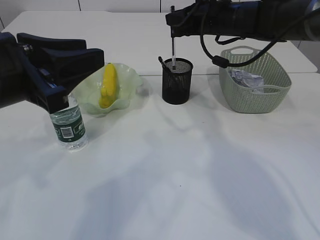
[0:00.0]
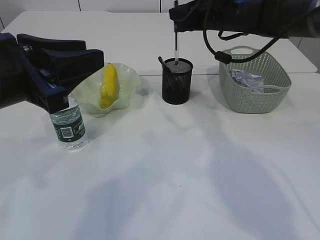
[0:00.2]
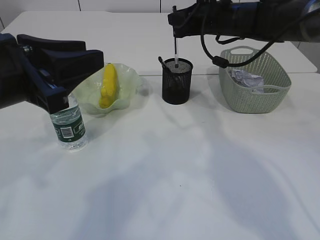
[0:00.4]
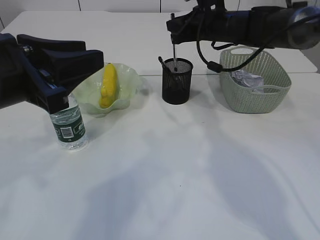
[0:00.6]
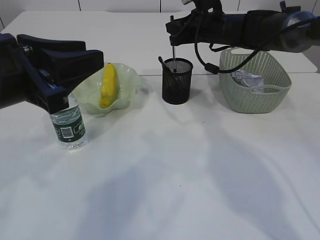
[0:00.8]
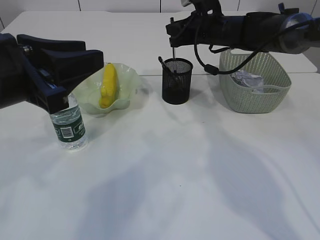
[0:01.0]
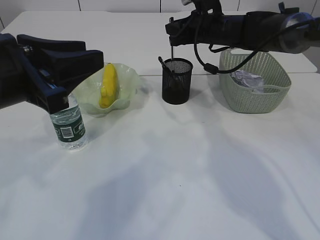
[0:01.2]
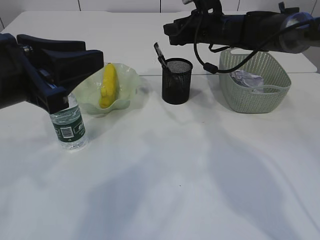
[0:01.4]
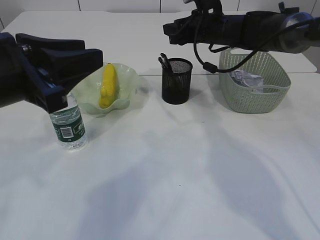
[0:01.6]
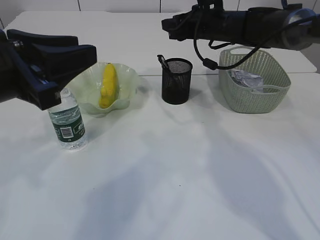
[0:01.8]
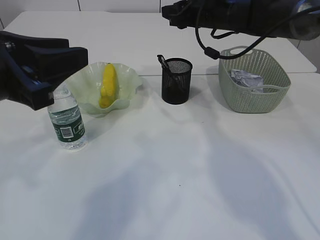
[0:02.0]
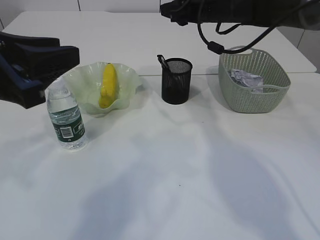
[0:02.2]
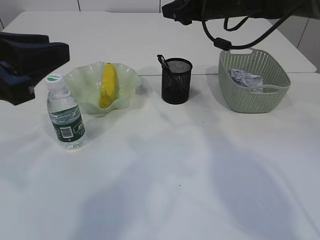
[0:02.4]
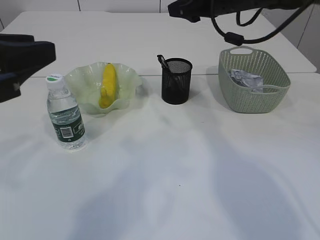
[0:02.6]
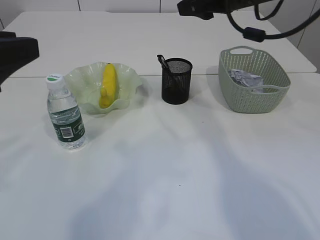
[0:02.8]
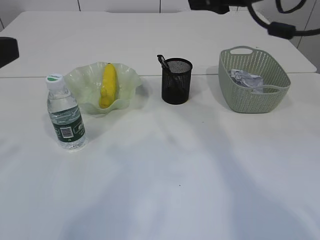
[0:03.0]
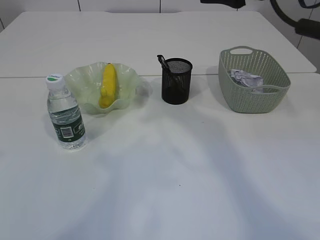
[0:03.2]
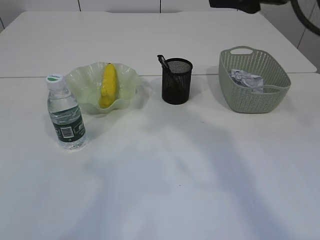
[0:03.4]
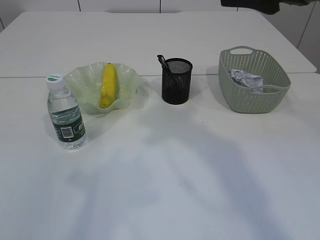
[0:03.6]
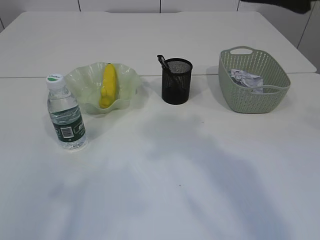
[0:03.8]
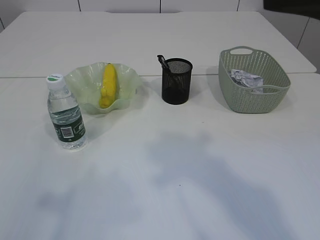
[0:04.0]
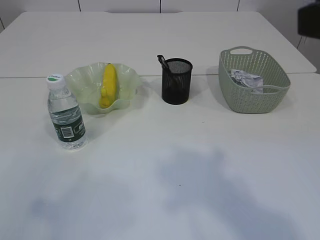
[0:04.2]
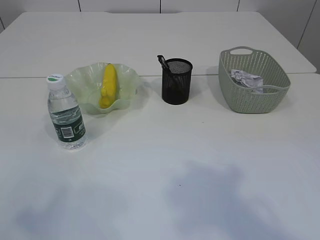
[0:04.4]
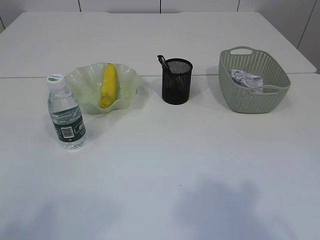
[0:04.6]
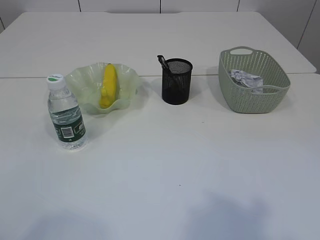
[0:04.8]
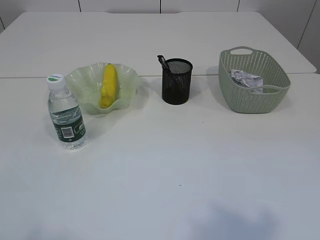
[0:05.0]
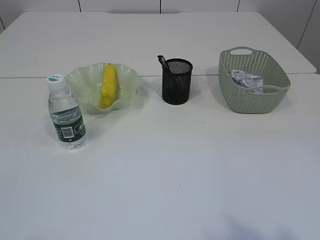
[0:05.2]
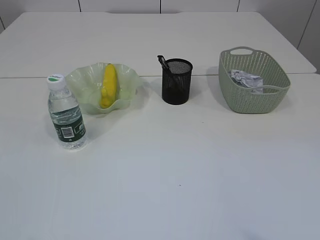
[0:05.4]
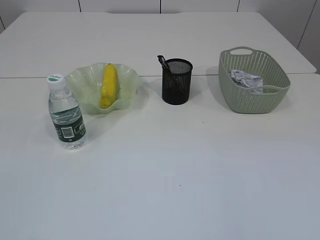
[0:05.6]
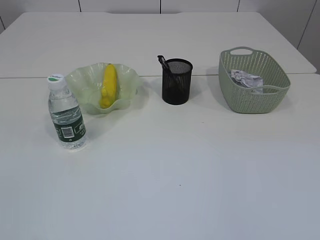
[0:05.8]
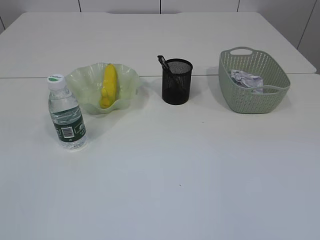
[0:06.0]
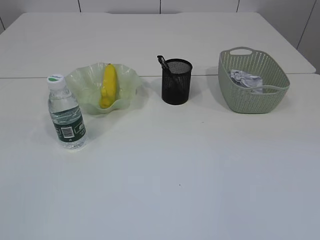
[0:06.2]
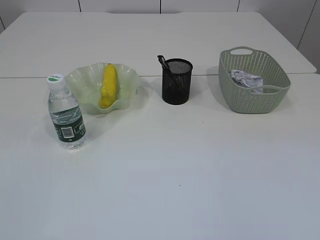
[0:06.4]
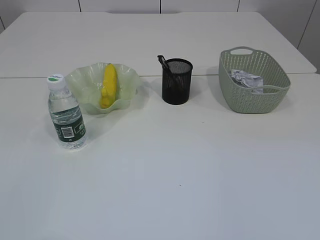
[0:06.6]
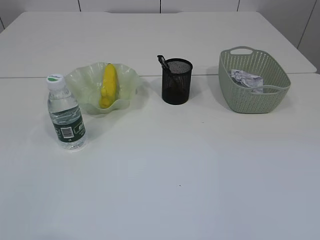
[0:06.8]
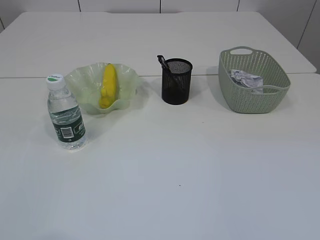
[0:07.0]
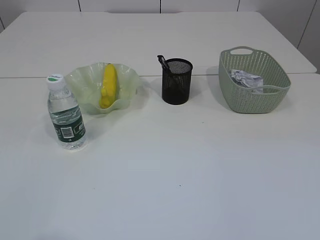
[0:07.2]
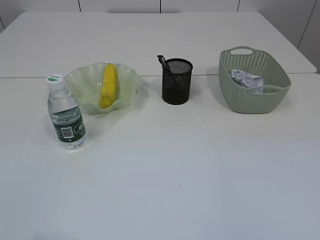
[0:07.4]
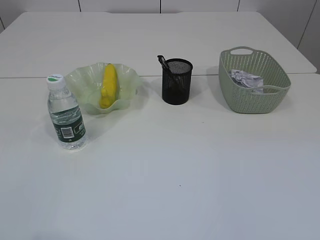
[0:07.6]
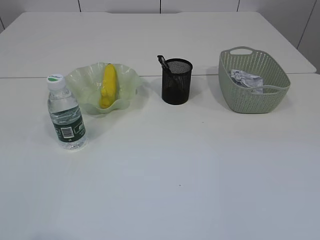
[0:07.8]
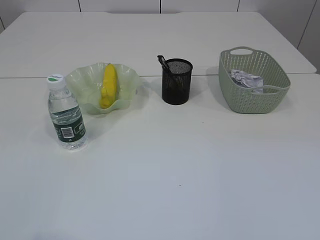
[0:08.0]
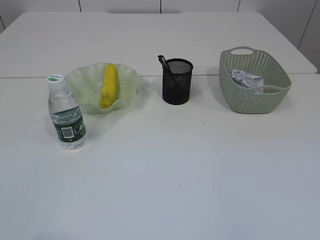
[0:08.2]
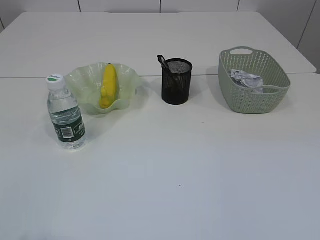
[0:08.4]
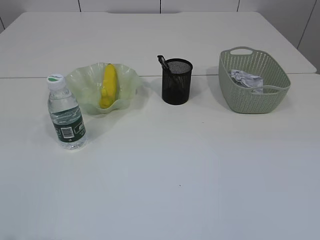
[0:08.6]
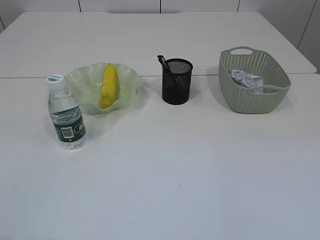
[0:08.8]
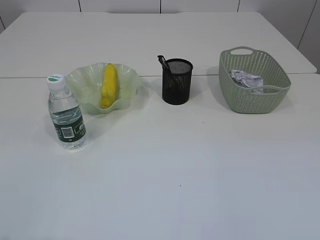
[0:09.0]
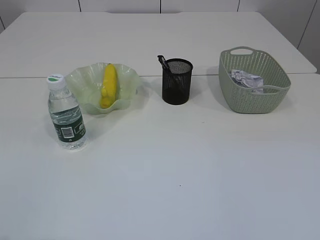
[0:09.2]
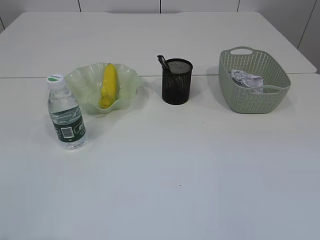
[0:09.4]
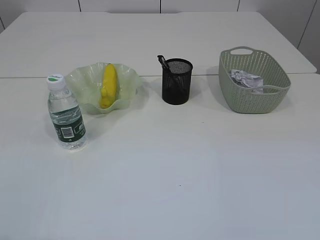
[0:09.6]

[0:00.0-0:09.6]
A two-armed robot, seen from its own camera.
0:00.0 to 0:01.6: The right gripper ends up roughly 5 cm from where it was, and opens up.
0:01.6 to 0:03.2: The left gripper is displaced to the left and backward by some 10 cm. Meanwhile the right gripper is displaced backward and upward by roughly 25 cm.
0:03.2 to 0:04.8: The left gripper moves backward and to the left, roughly 15 cm. Meanwhile the right gripper is displaced backward by roughly 30 cm.

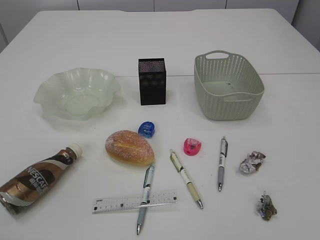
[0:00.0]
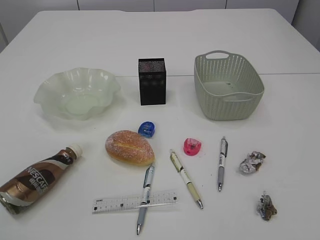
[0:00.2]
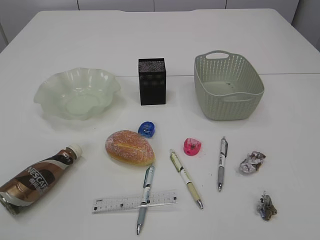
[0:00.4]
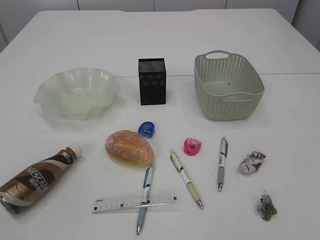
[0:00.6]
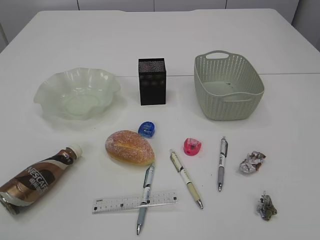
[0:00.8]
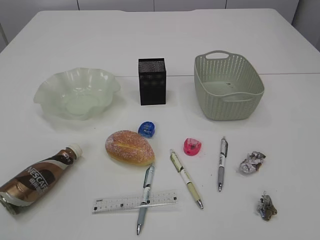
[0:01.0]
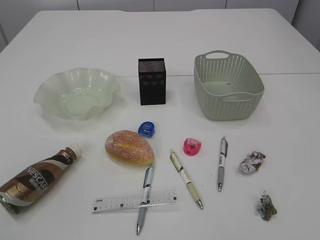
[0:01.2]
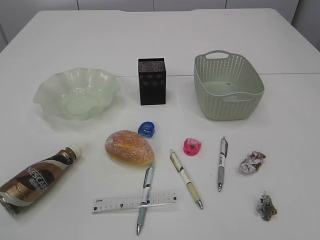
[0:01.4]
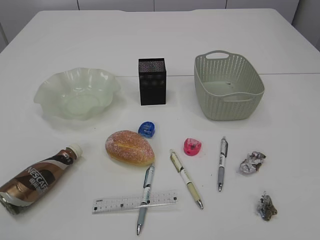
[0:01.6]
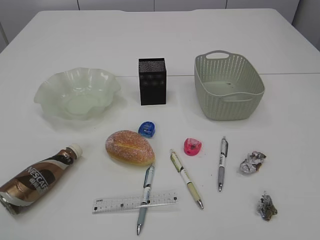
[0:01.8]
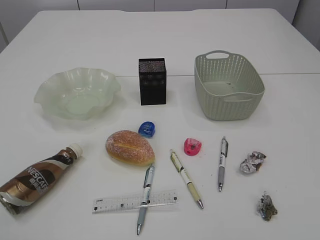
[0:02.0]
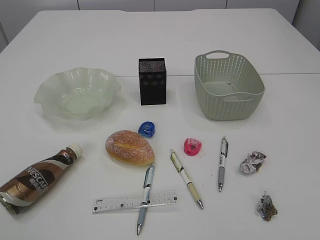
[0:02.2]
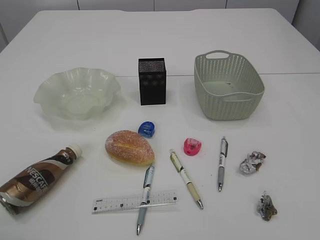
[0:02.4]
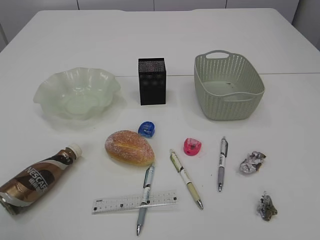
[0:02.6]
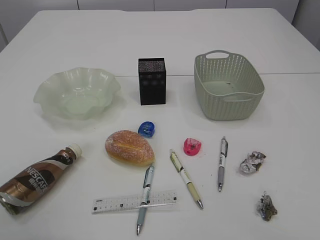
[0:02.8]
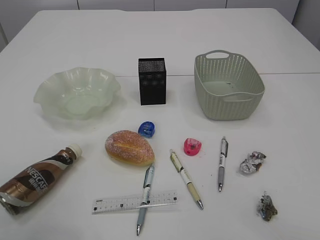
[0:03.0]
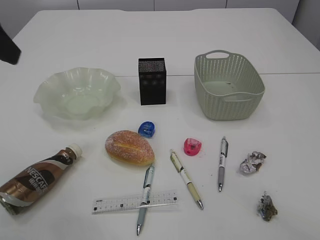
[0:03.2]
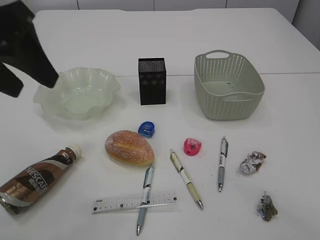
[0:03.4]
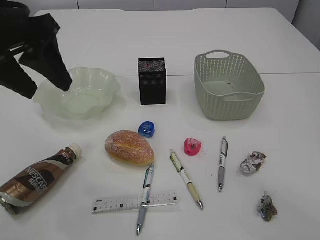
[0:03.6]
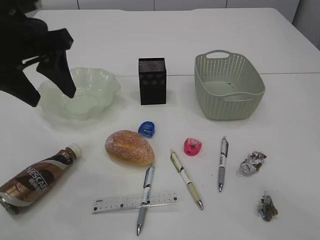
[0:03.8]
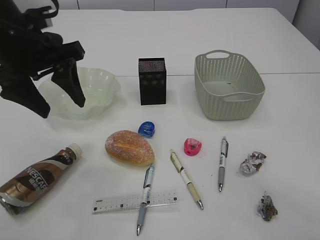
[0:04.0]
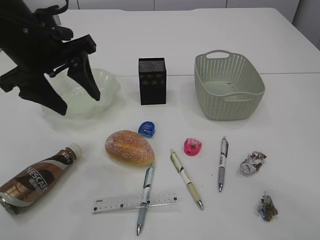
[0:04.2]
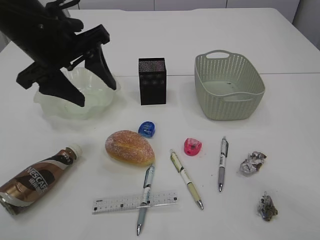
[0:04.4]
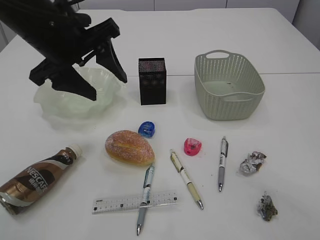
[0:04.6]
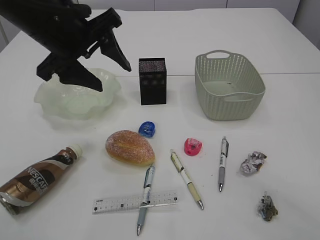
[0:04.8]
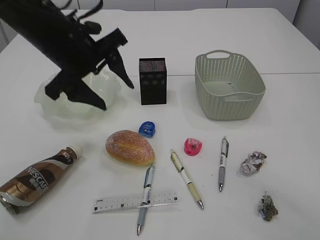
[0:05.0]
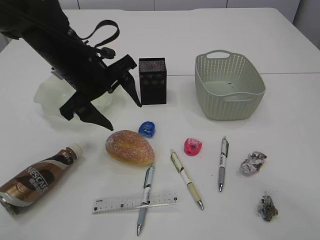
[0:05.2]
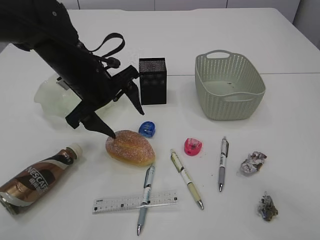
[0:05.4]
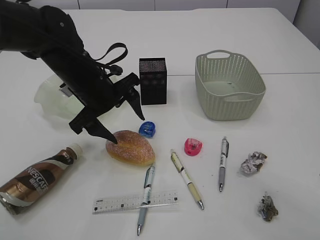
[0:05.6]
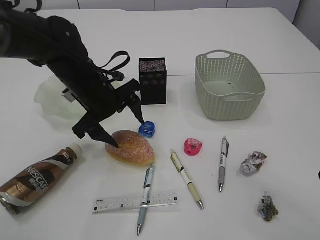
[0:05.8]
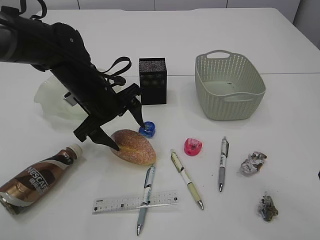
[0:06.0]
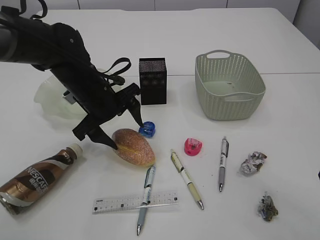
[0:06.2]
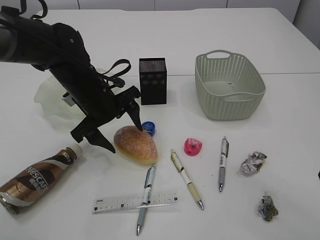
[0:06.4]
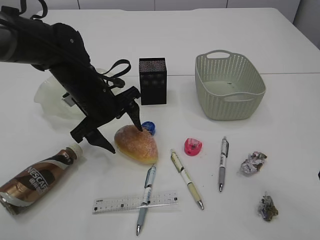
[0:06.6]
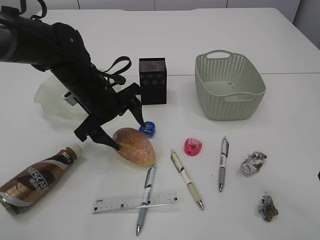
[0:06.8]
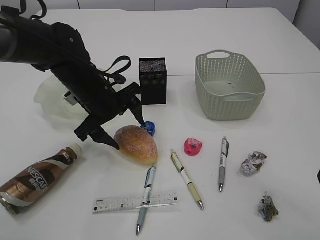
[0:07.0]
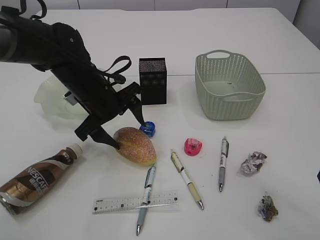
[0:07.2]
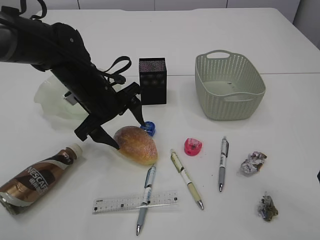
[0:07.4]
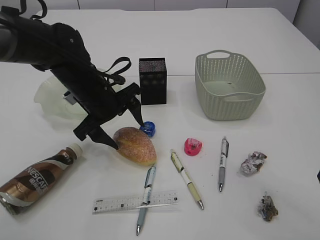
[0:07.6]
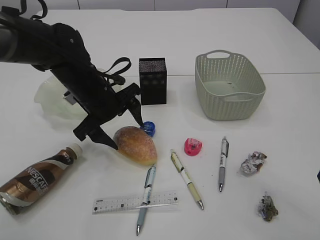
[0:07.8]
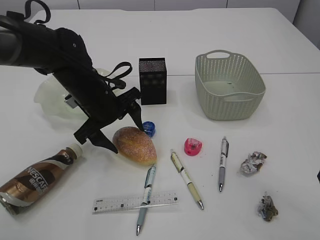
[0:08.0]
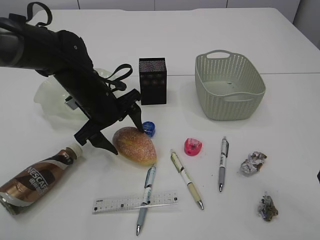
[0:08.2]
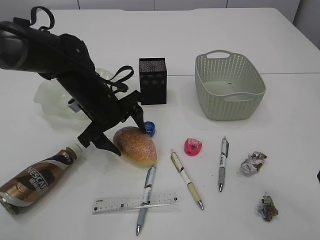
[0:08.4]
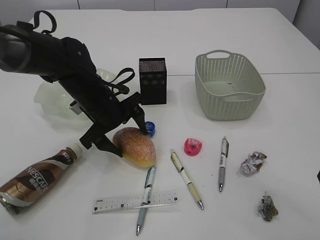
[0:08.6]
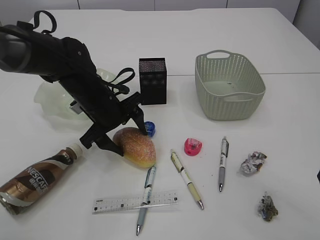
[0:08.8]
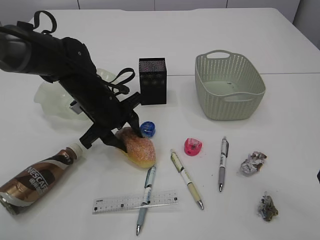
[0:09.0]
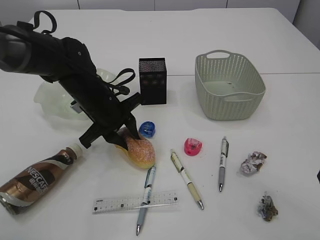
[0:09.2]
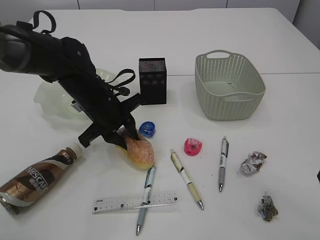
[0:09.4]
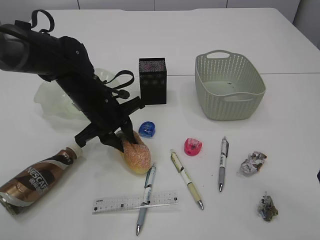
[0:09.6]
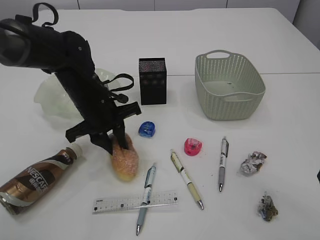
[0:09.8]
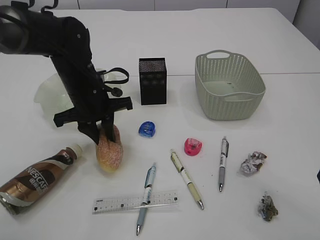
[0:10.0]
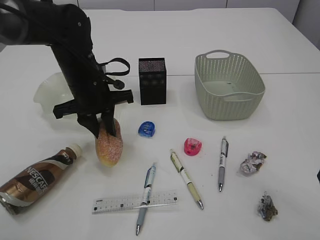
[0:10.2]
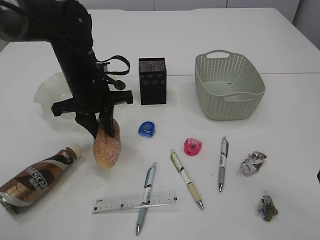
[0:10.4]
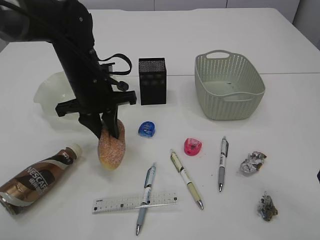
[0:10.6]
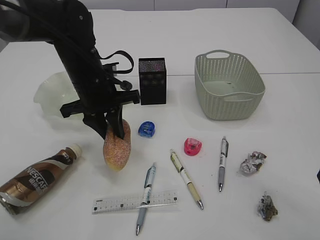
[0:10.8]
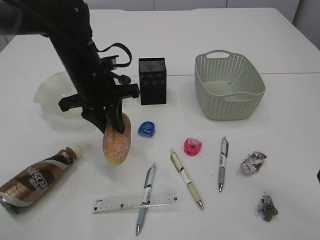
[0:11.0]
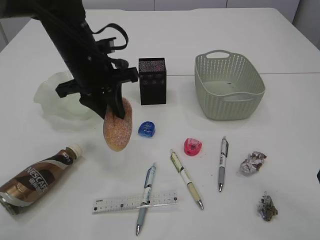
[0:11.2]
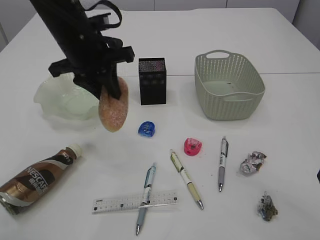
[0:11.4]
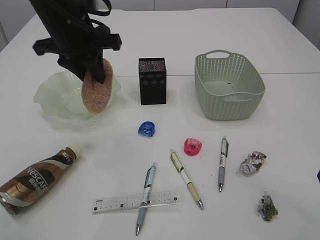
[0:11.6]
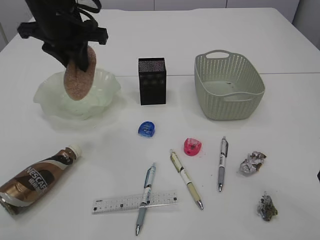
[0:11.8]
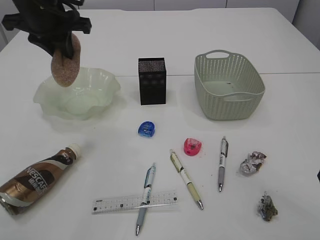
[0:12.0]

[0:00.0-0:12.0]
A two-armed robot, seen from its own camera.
0:03.0 to 0:04.4: The left gripper moves to the right, downward and forward, approximately 20 cm.
0:04.4 to 0:06.0: The left gripper is displaced downward by approximately 15 cm.
0:06.0 to 0:07.6: Both grippers stay put.
0:07.6 to 0:09.0: The left gripper closes.
0:09.0 to 0:10.4: The left gripper closes its fingers.
0:10.4 to 0:12.0: The left gripper shifts about 15 cm upward and to the left.

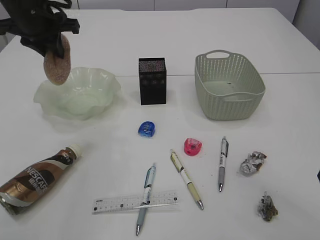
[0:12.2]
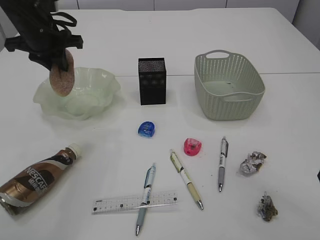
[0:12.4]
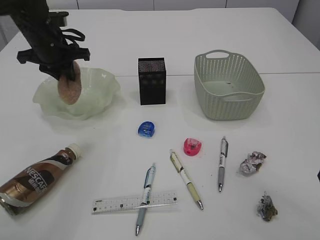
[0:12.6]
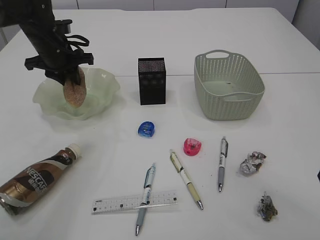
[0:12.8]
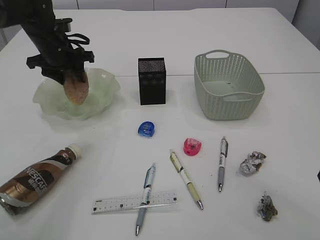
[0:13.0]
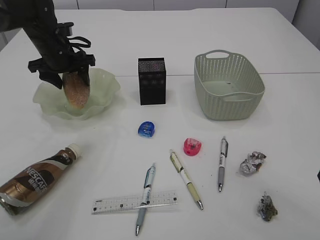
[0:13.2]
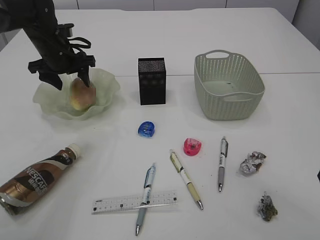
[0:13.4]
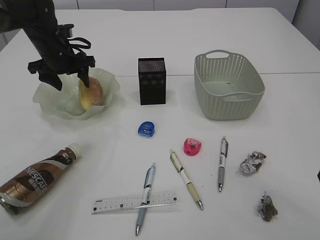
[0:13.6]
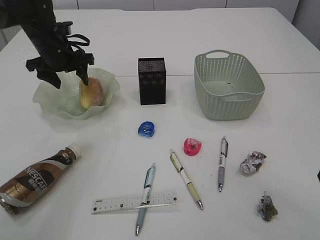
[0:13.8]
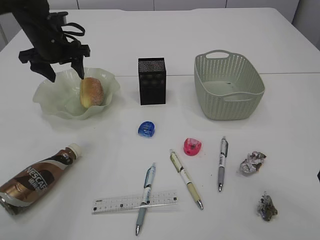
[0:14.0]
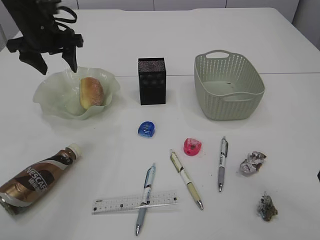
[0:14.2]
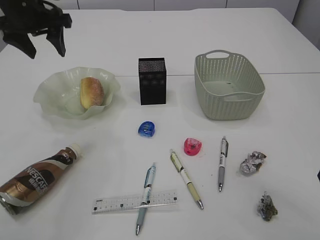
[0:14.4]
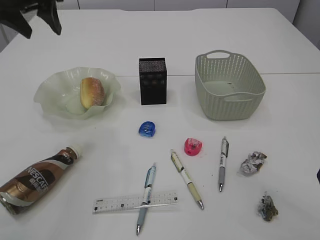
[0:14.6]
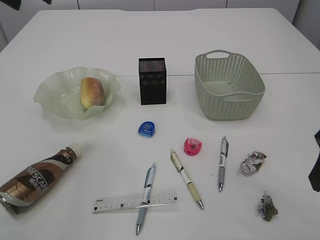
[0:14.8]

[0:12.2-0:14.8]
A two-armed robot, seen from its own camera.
Step, 0:12.2 to 0:14.2: place the bread in the plate.
0:12.2 to 0:13.4: The left gripper heads downward and forward, covering roughly 15 cm, and opens up.
0:13.4 to 0:14.8: The left gripper travels upward and backward by approximately 25 cm.
